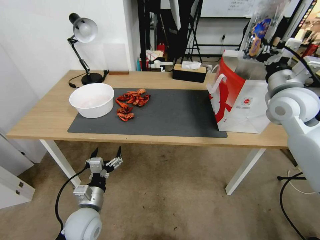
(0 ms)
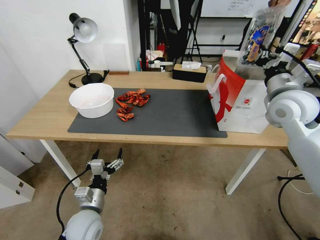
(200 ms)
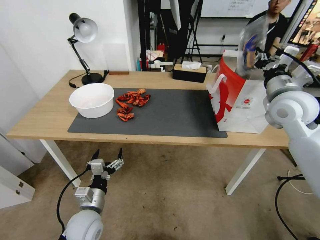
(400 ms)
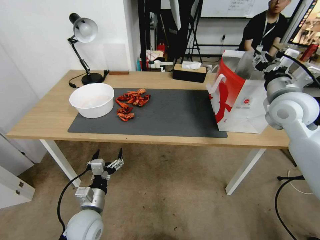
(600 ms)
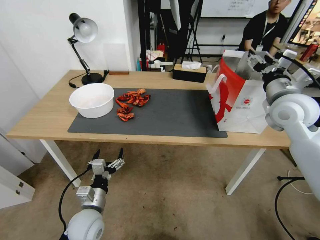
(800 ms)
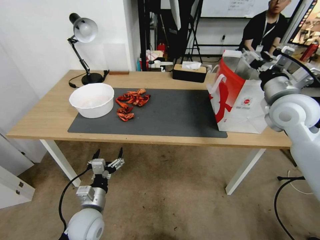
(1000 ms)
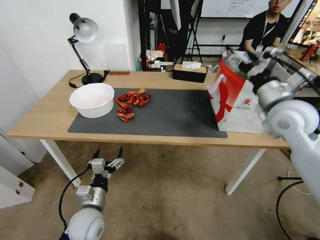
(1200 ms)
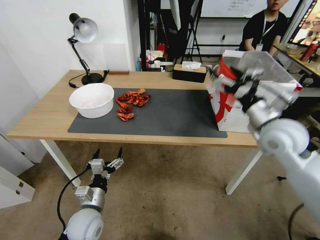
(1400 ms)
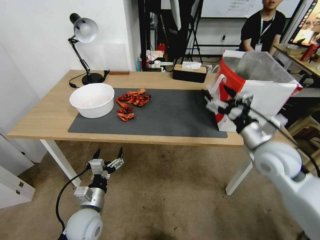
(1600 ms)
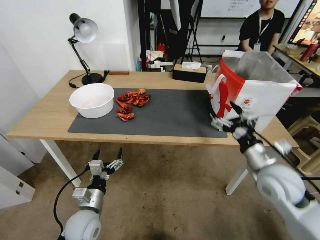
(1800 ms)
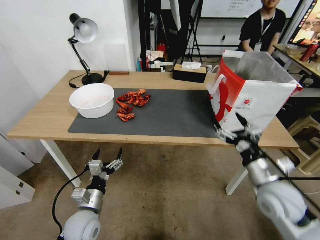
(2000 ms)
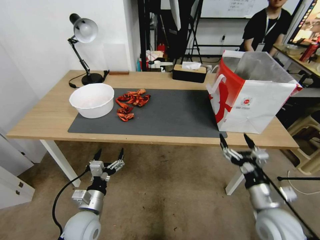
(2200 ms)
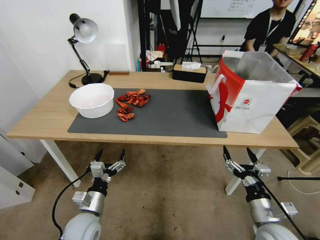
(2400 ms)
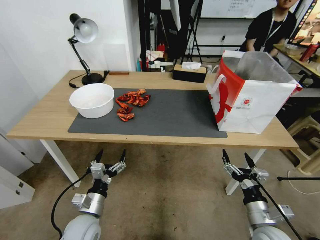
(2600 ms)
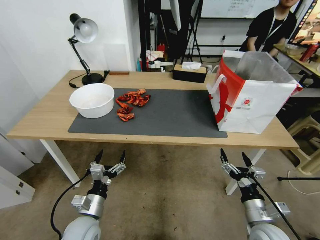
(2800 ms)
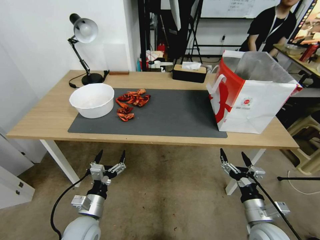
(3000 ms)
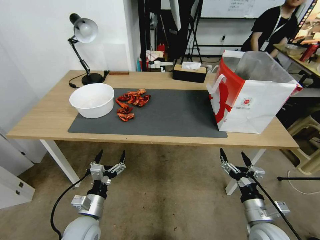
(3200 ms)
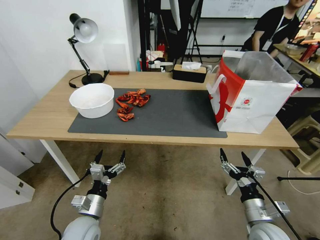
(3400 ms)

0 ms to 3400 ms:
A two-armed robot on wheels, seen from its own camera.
Task of the whole recording: Close the takeout container lid, then place the container into the takeout bag.
0 ms to 1600 ms: The right gripper moves downward and backward, about 15 cm, and opens.
1600 ms to 3400 ms: The right gripper heads downward and backward, covering roughly 25 cm.

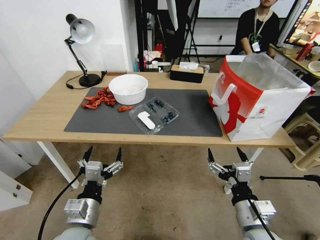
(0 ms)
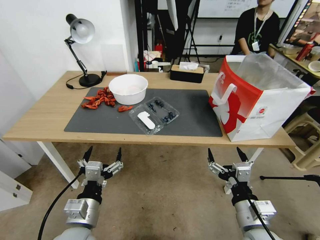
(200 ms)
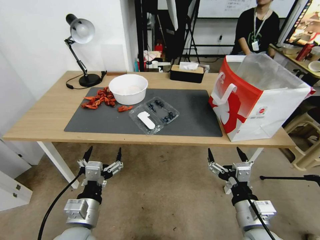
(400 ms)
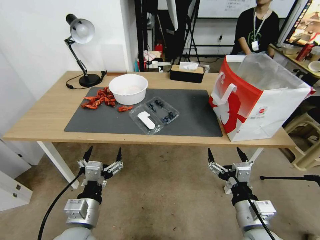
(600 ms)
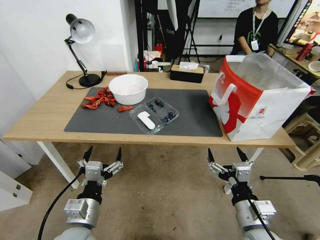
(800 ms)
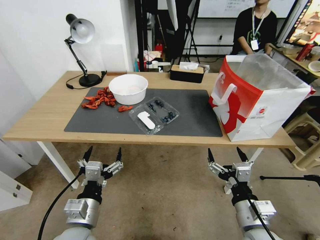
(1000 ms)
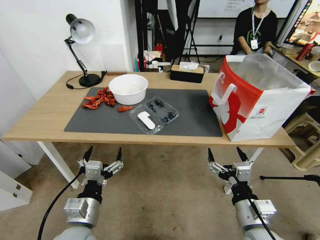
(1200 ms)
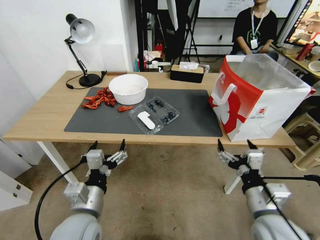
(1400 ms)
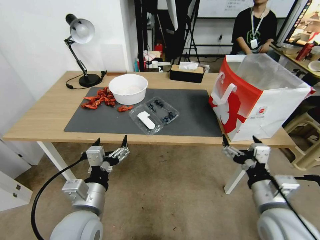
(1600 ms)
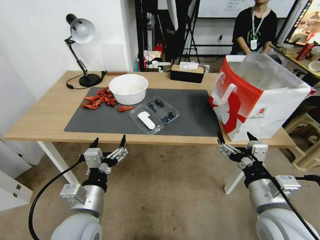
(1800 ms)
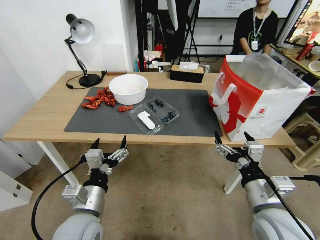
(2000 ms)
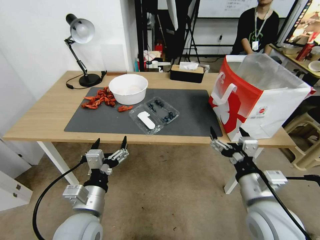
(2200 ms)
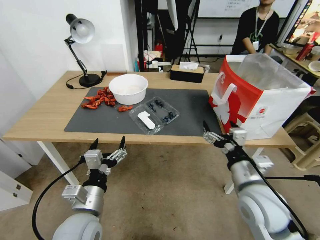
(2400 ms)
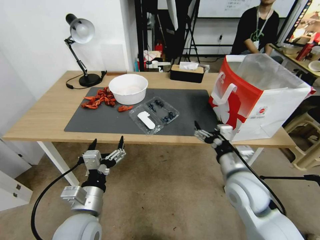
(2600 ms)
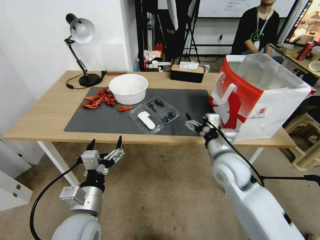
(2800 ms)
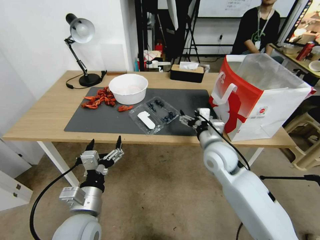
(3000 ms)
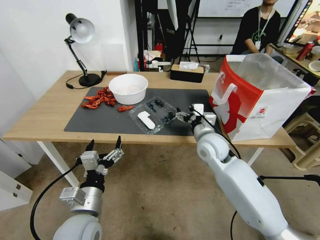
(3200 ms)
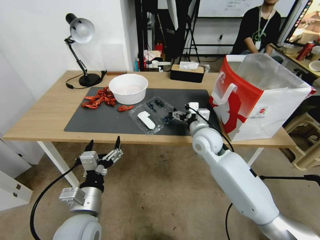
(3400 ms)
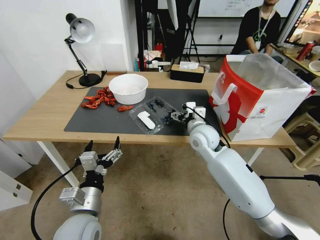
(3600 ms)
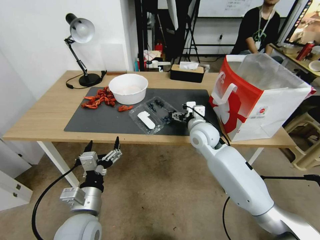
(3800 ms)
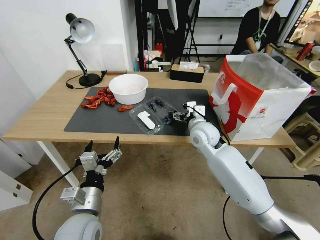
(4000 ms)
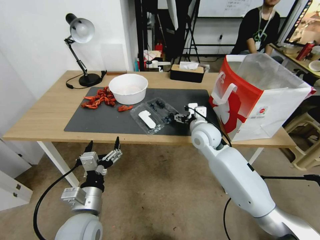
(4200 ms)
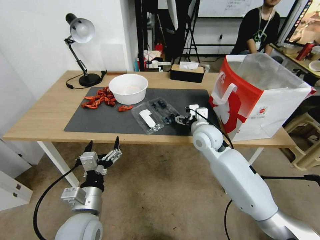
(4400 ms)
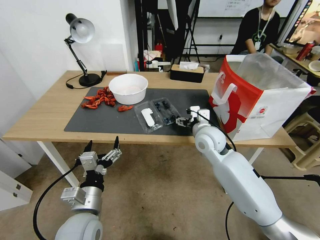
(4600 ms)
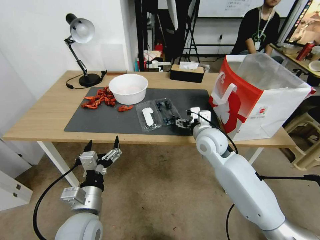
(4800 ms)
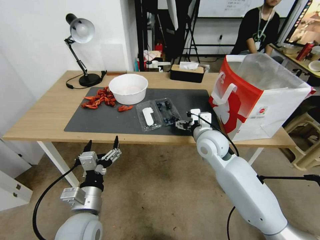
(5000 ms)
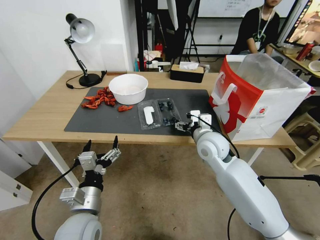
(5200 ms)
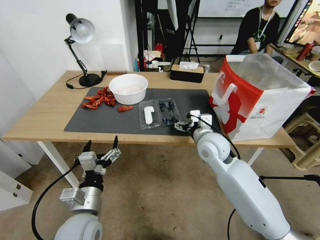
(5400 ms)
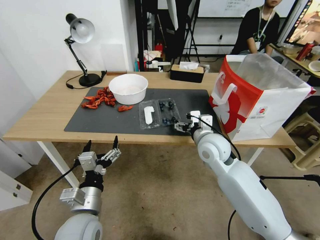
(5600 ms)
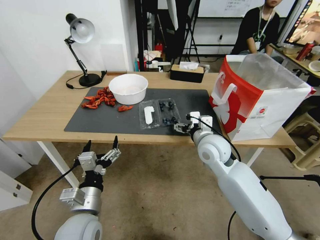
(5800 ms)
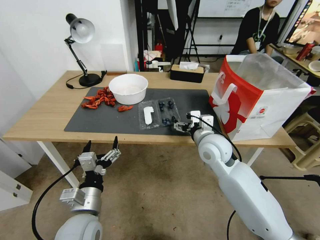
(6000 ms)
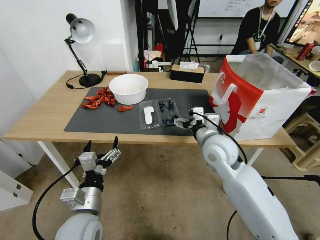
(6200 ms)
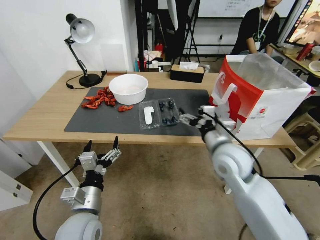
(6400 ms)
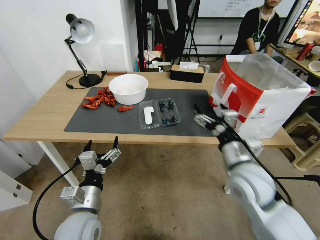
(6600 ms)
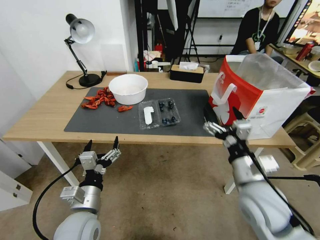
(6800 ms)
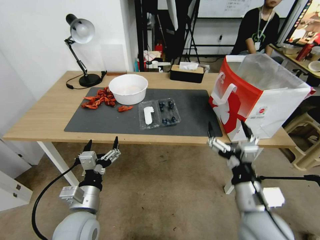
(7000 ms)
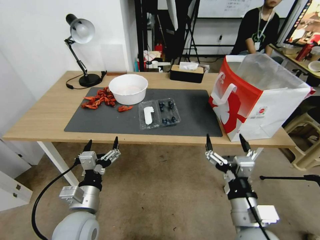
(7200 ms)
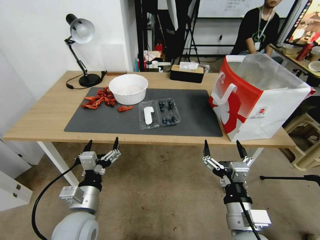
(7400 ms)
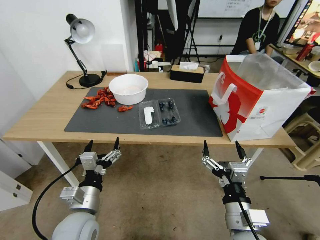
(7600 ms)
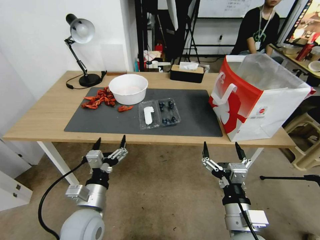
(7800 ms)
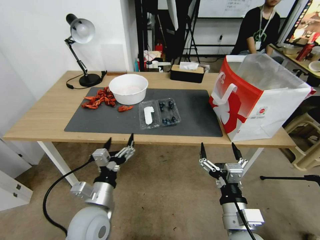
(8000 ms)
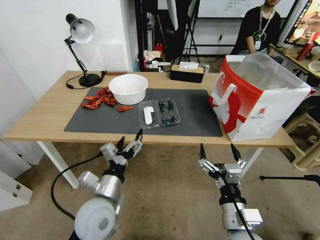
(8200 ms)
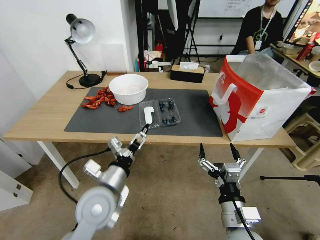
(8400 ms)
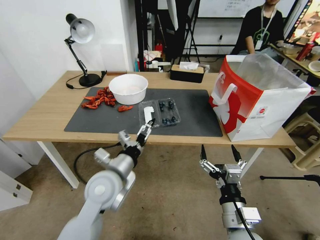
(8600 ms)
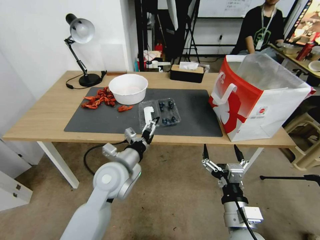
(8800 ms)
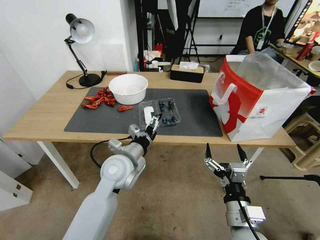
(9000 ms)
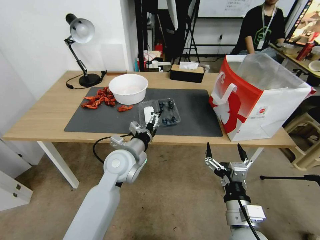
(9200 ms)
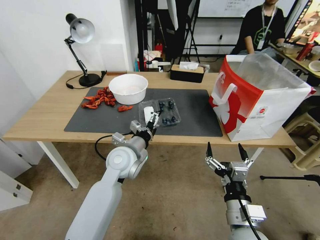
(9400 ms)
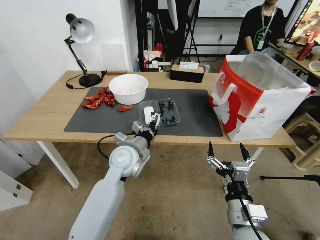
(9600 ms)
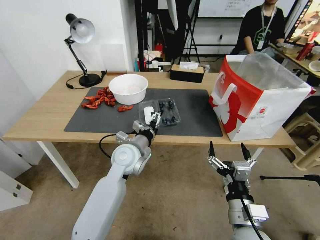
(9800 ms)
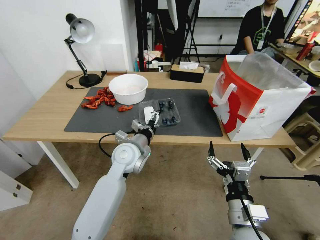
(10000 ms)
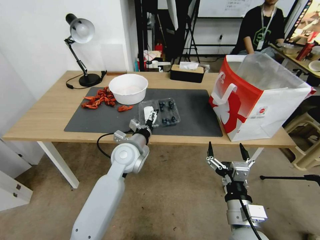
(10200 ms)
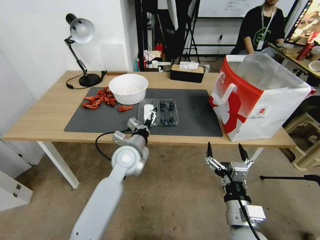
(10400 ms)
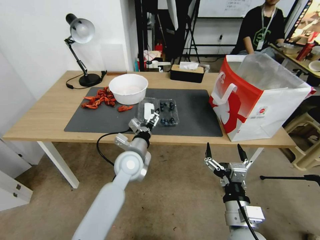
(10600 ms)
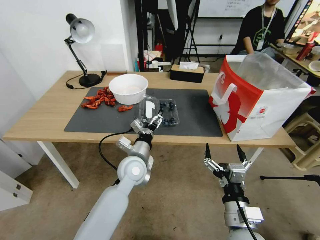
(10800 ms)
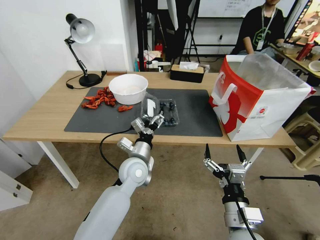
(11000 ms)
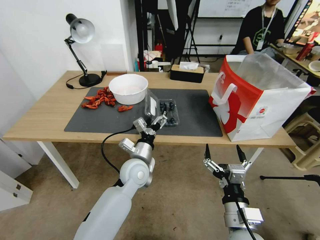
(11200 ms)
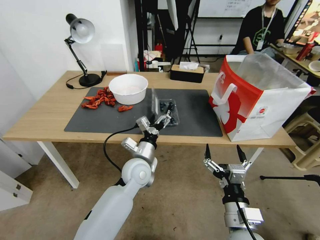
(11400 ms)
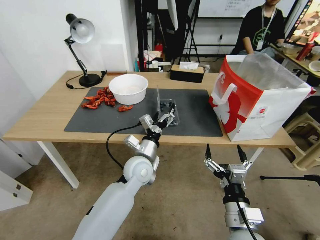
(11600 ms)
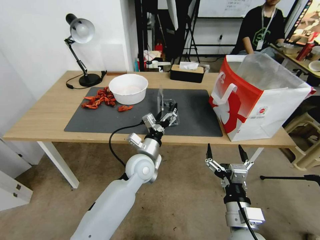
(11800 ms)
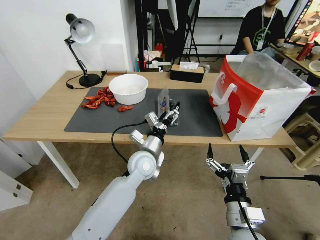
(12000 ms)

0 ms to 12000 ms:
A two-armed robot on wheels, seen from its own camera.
Task of the whole recording: Close the takeout container lid, then place the container into the takeout bag.
1600 ms to 3000 ms: The right gripper travels forward and to the left by some 20 cm.
3000 ms to 4400 ms: The right gripper moves forward, about 5 cm.
4400 ms to 6000 ms: The right gripper shifts approximately 5 cm backward.
6000 ms to 7600 ms: The right gripper shifts approximately 25 cm backward.
7600 ms to 9000 ms: The left gripper travels forward and to the right by some 15 cm.
9000 ms to 10400 ms: The left gripper ends up roughly 5 cm from where it was.
10400 ms to 12000 ms: The left gripper shifts by roughly 5 cm.

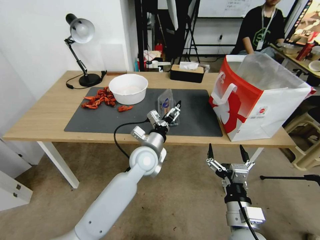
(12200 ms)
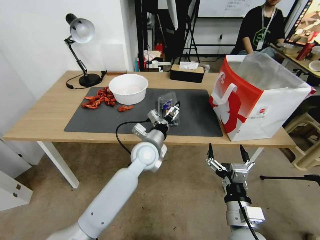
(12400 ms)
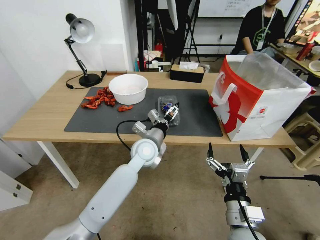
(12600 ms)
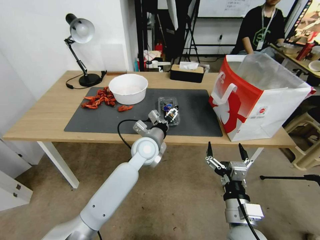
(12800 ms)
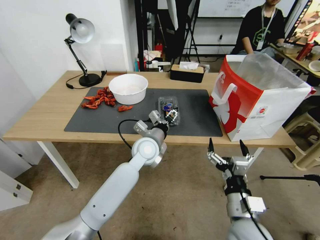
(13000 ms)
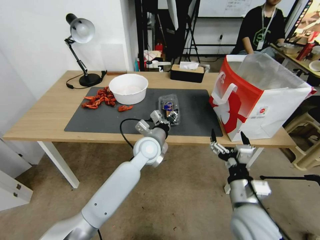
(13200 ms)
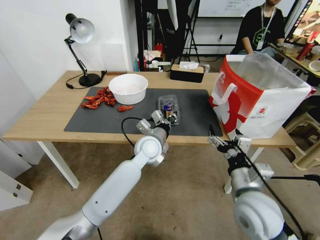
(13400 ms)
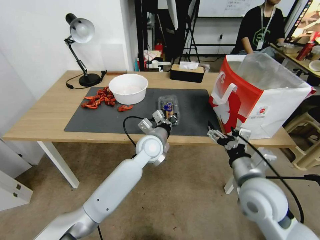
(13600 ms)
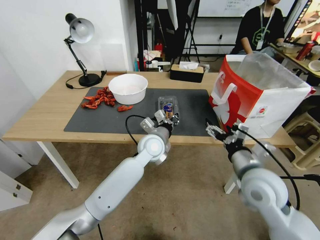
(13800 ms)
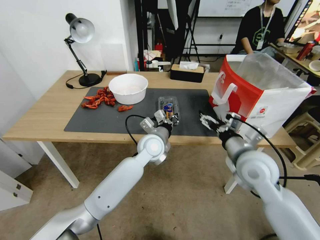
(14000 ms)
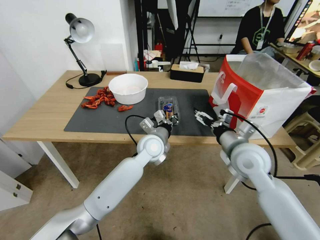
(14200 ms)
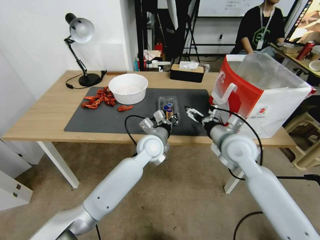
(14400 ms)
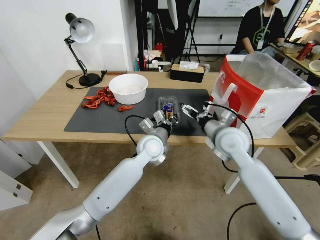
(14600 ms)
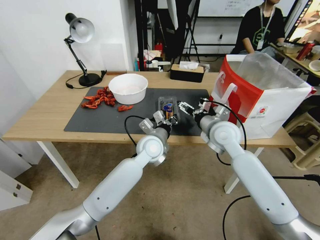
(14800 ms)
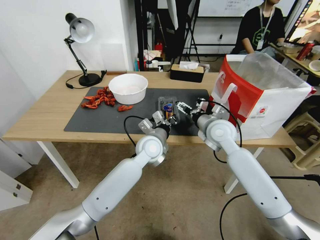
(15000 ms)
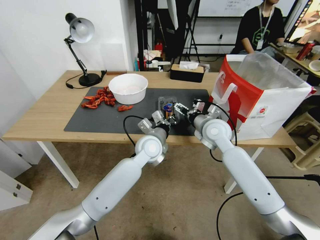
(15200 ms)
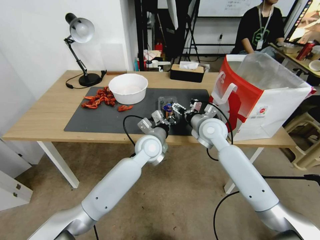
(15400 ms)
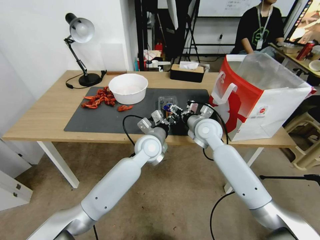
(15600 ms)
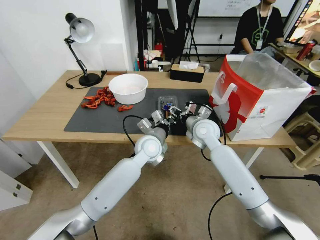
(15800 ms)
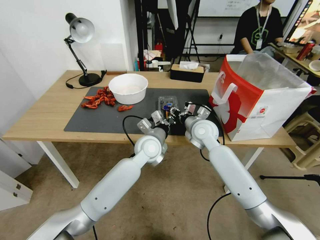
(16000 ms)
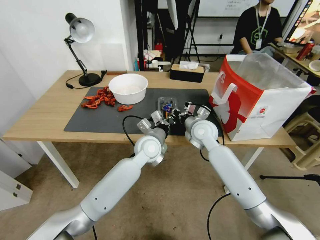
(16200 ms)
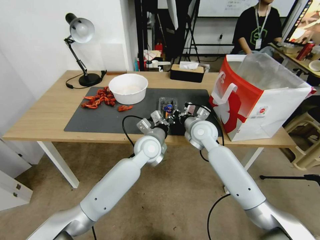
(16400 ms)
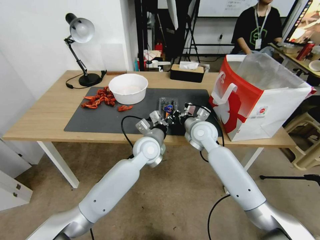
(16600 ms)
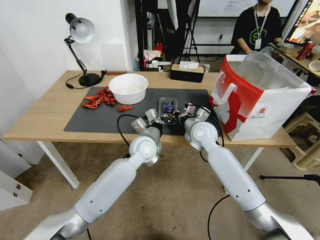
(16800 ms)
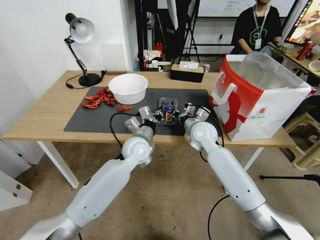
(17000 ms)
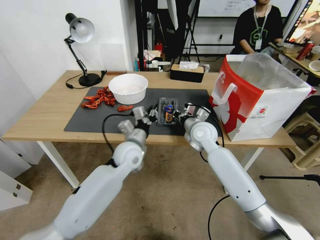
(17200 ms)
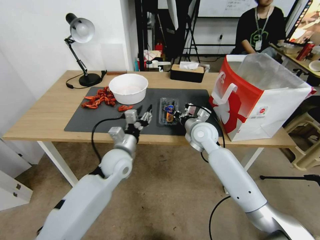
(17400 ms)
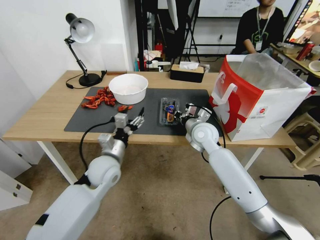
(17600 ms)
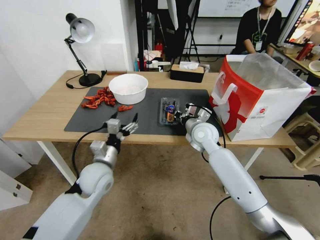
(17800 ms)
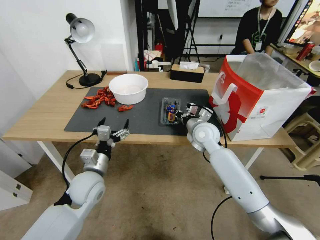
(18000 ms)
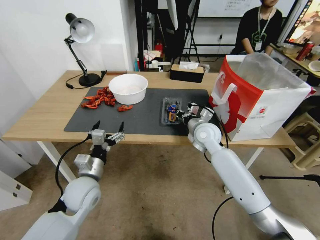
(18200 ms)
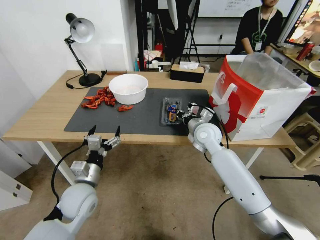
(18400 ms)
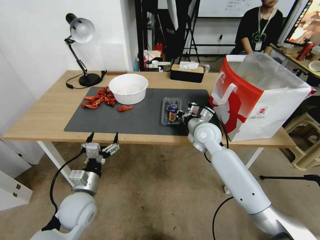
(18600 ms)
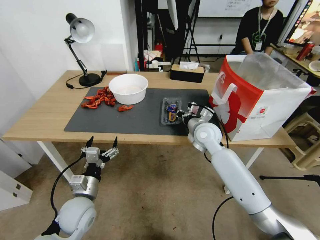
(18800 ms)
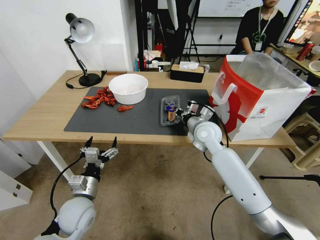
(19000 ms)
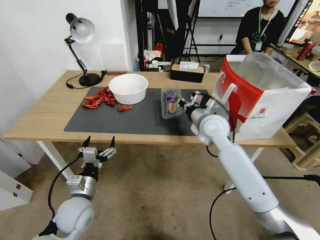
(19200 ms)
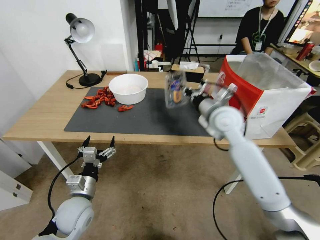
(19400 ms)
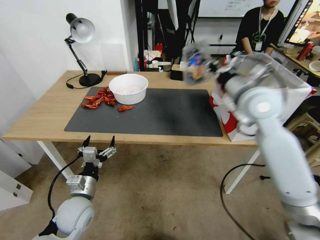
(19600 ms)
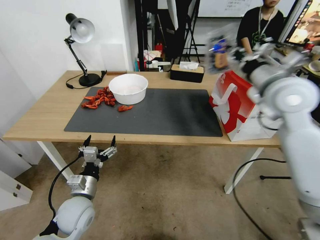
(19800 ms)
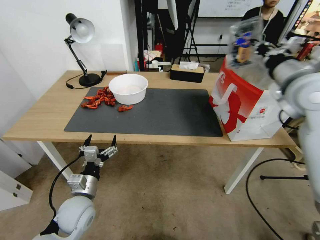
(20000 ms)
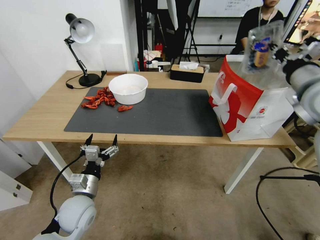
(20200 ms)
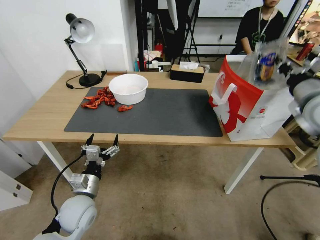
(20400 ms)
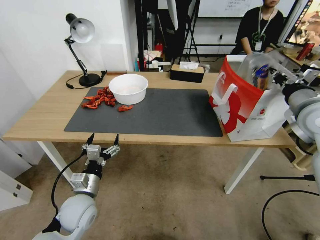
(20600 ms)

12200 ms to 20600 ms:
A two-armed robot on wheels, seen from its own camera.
Task of the whole recording: Close the takeout container lid, then place the container into the takeout bag.
12200 ms to 13600 ms: The left gripper closes. The right gripper travels forward and upward by approximately 10 cm.
13600 ms to 15000 ms: The right gripper is displaced forward by approximately 20 cm.
15000 ms to 16400 ms: The right gripper changes place by roughly 5 cm, and closes its fingers.
16400 ms to 17800 ms: The left gripper travels to the left and backward by roughly 20 cm, and opens up.
17800 ms to 19200 ms: The right gripper heads upward, covering some 5 cm. Meanwhile the left gripper heads backward and downward, covering about 10 cm.
19200 ms to 20600 ms: The right gripper heads to the right and upward, covering about 25 cm.
